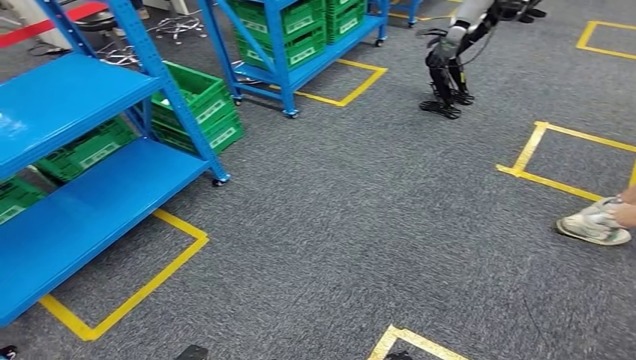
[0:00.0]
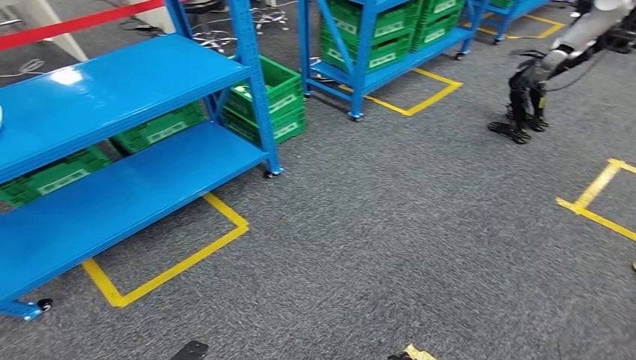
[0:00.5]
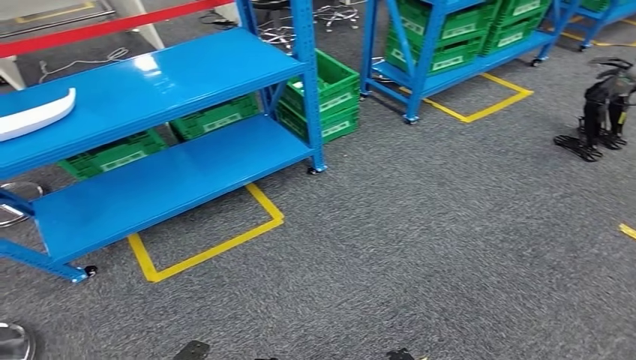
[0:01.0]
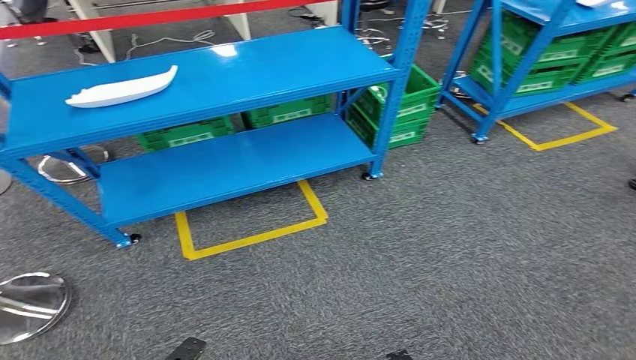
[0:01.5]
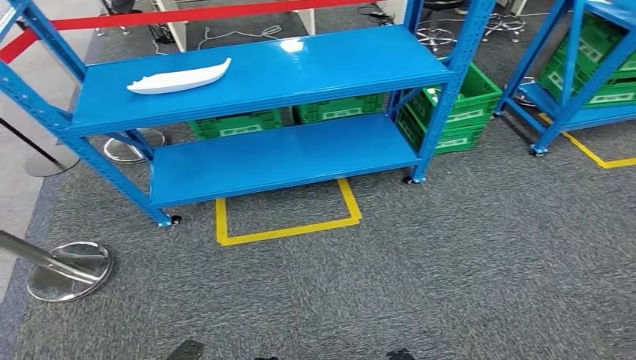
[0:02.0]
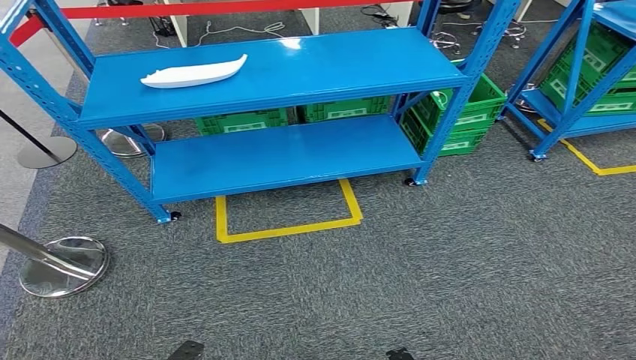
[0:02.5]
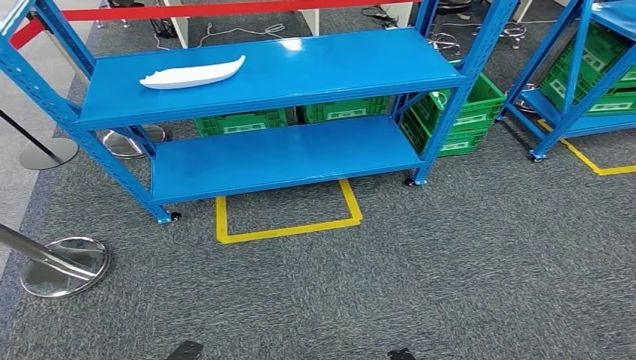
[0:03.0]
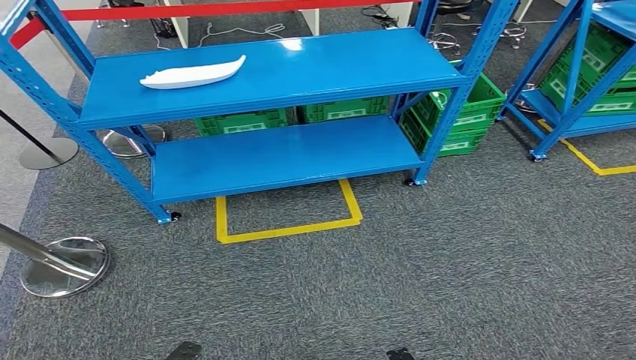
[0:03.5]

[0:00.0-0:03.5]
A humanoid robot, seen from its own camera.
Step, 0:00.0 to 0:03.5: Move to the initial position of the workbench.
0:02.0 to 0:03.5: Both hands stay put.
